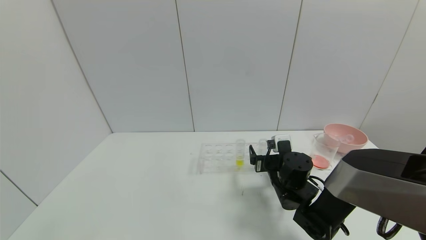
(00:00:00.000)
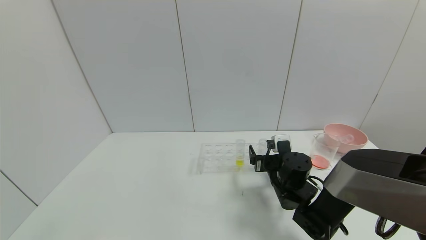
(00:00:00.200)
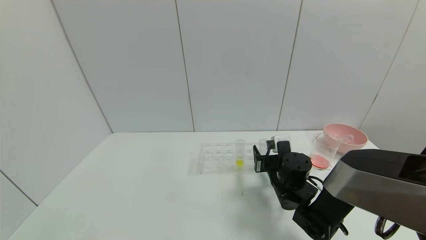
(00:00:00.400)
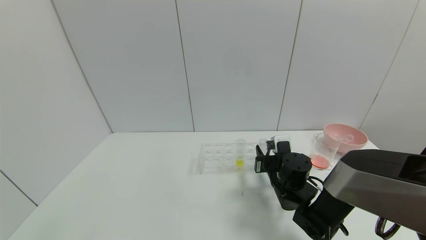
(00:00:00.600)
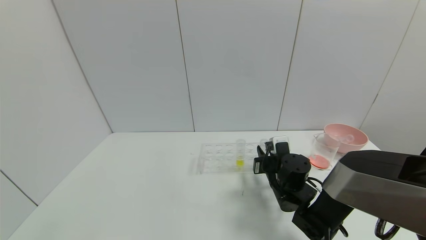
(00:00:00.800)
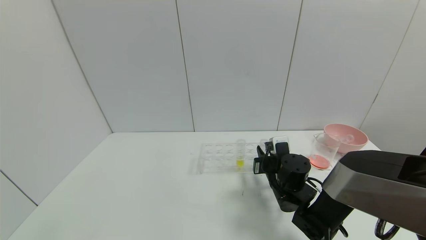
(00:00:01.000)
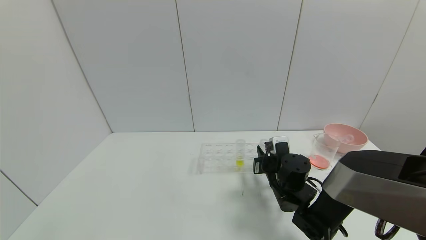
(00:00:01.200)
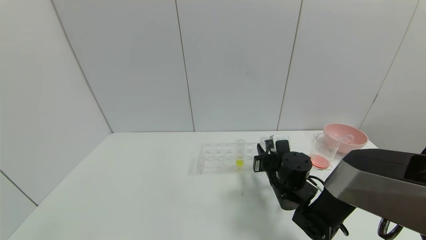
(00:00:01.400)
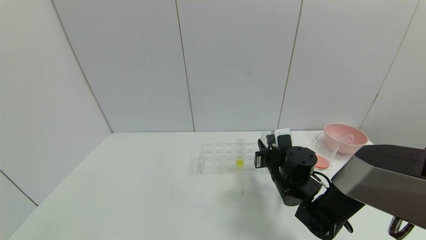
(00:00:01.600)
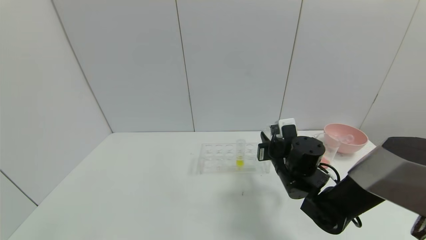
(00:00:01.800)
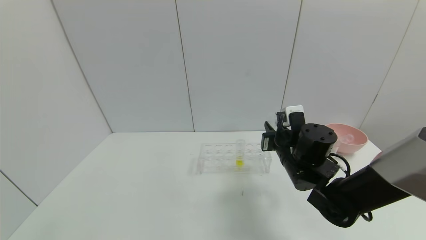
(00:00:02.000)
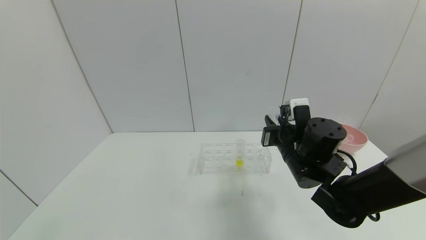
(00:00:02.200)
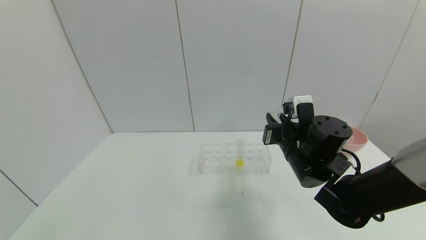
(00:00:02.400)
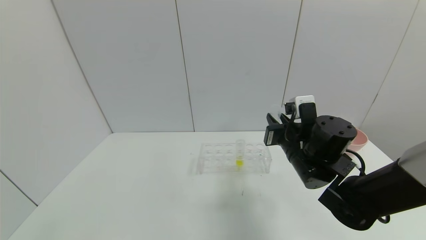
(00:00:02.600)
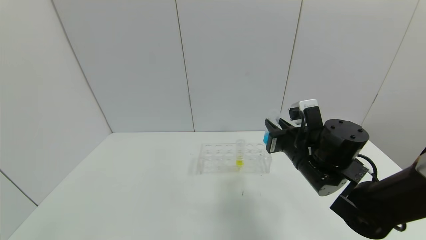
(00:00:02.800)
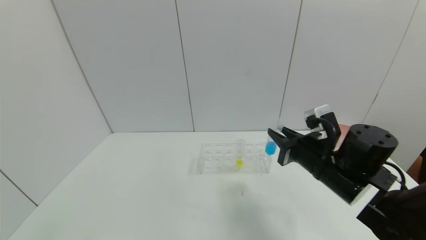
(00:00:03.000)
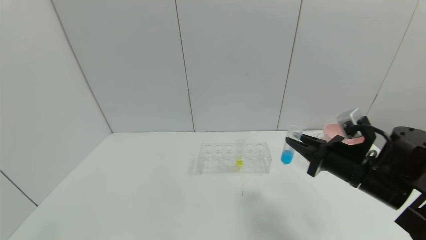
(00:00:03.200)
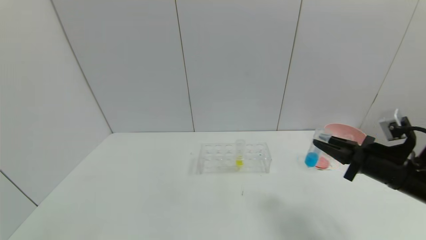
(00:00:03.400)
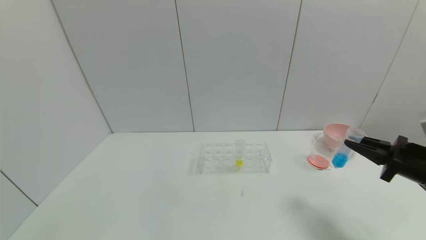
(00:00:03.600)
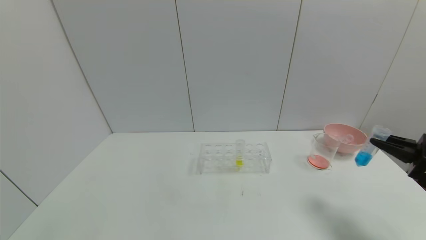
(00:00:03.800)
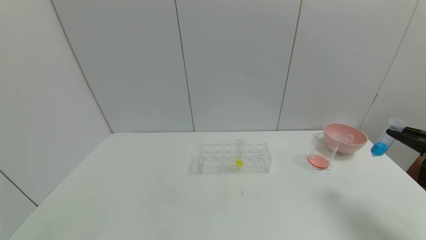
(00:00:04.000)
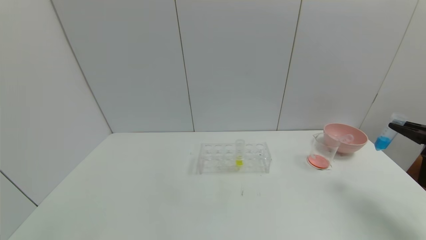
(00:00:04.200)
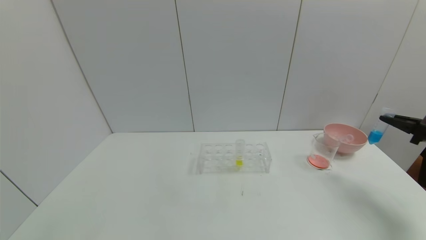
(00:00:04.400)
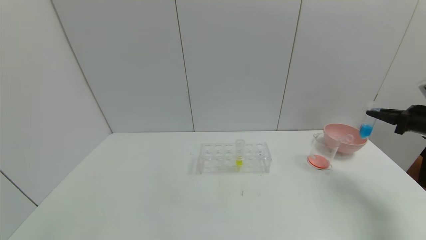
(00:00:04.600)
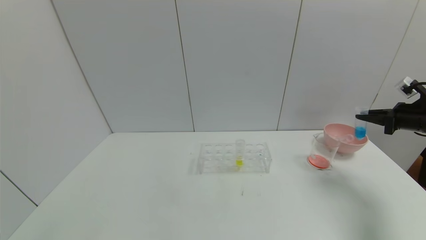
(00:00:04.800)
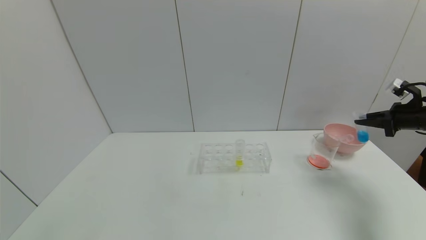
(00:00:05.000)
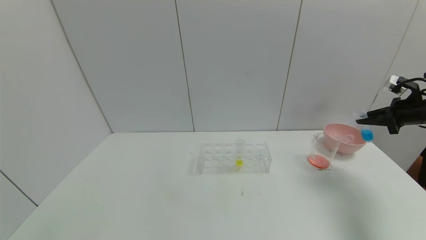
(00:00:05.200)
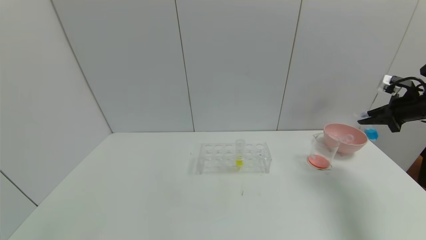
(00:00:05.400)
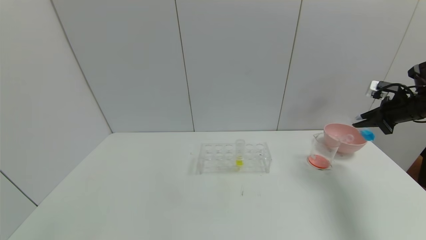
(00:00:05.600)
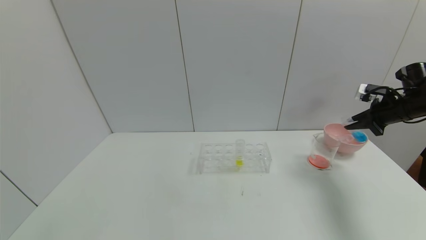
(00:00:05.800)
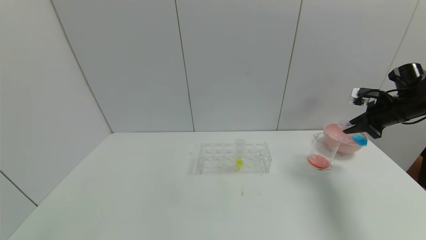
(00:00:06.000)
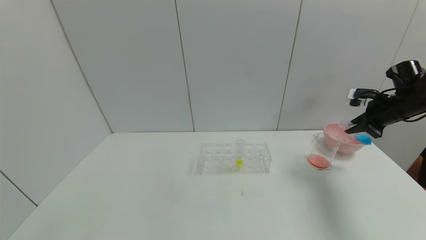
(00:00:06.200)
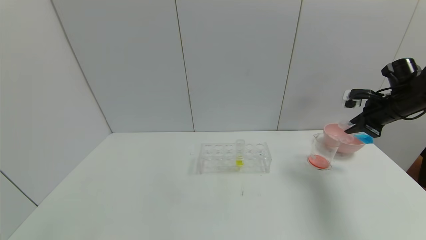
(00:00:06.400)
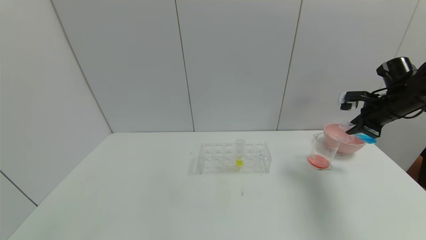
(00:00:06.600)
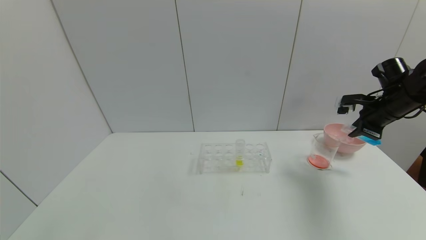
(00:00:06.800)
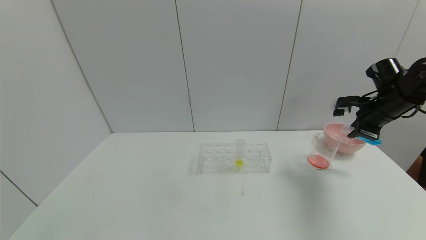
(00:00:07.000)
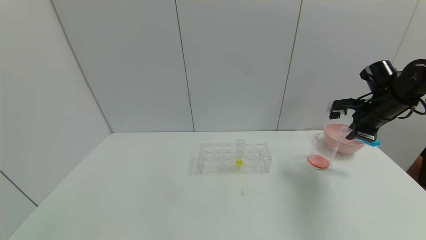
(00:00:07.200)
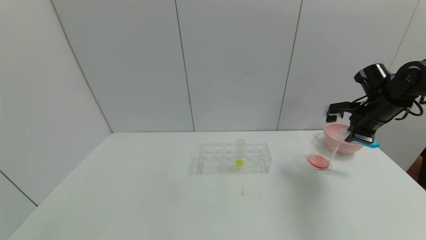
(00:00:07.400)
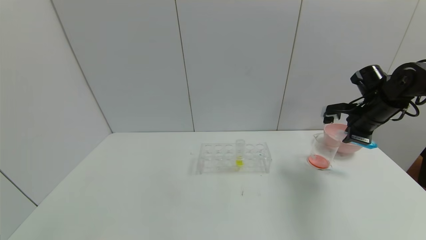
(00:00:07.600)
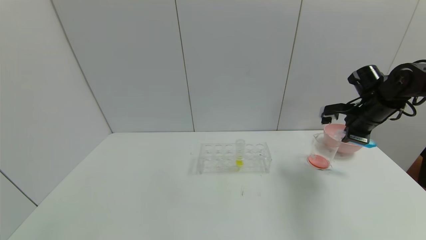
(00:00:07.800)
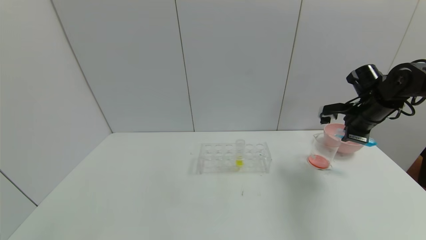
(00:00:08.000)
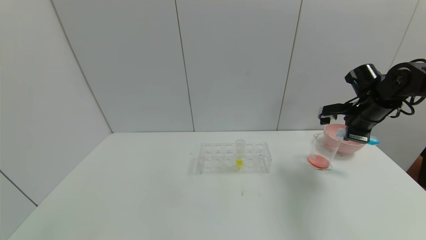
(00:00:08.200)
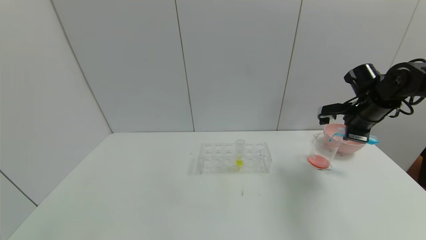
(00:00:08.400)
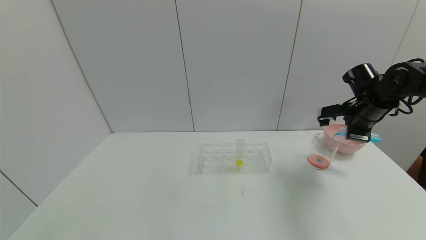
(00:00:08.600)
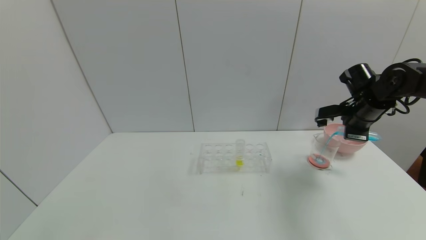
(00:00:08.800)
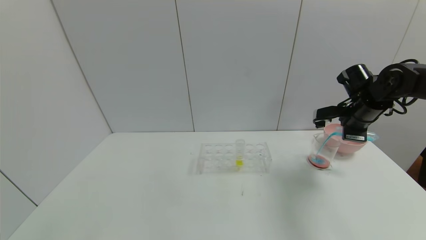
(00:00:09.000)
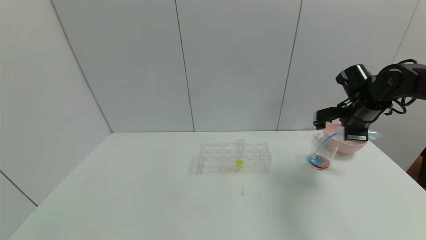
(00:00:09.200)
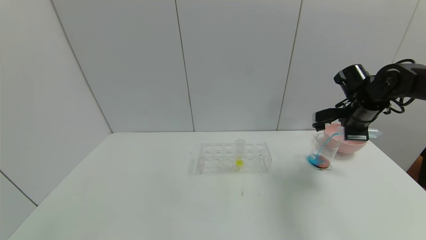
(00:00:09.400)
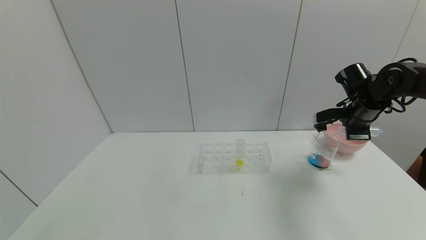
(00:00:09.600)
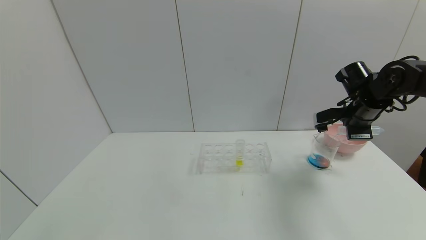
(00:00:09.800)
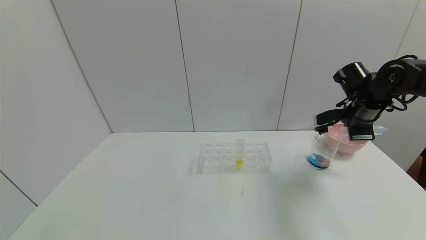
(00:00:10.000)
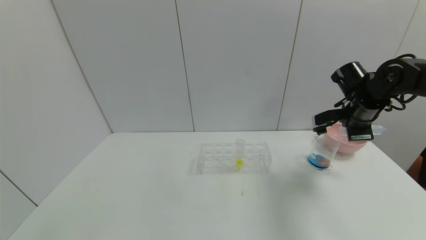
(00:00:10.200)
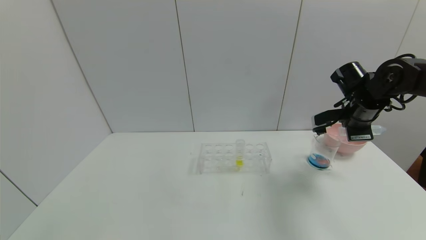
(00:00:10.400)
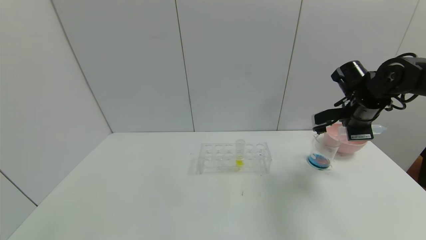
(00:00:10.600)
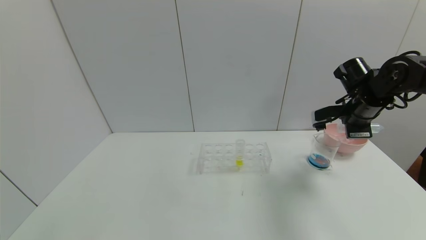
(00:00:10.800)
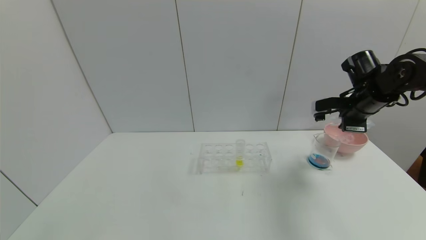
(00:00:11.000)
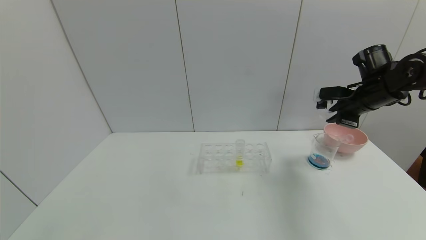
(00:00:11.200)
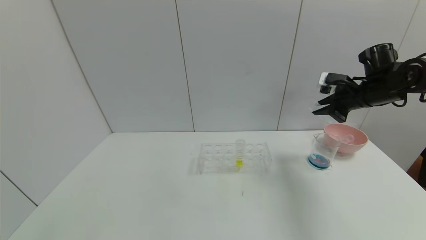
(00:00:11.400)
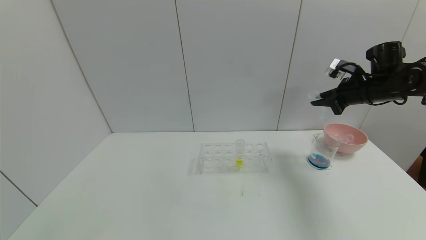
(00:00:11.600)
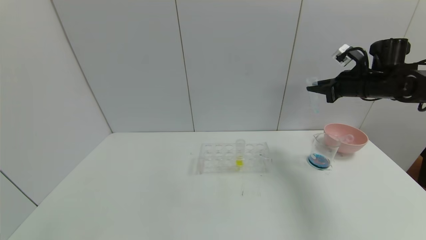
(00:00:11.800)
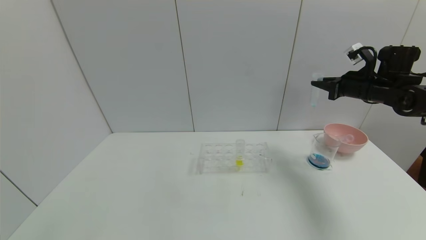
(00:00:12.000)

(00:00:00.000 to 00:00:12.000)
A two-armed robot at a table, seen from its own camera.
Task of the whole recording: pick up the test tube with red pigment and the test tube with blue pigment by grippers and pour them into the container.
Step, 00:00:00.000 - 00:00:04.000: Pick up the test tube containing the blue reagent with right gripper.
Step, 00:00:04.200 - 00:00:10.800: Pour the blue reagent into the graduated cylinder with right gripper.
00:00:00.000 - 00:00:01.600: The right gripper closes up.
00:00:01.600 - 00:00:03.000: The right gripper heads upward, backward and to the right, covering approximately 10 cm.
00:00:03.000 - 00:00:04.400: The right gripper shifts about 30 cm to the right.
00:00:04.400 - 00:00:06.000: The right gripper is displaced forward and to the left by about 10 cm.
00:00:06.000 - 00:00:07.600: The right gripper travels to the left by some 10 cm.
00:00:07.600 - 00:00:09.000: The grippers move only a little.
00:00:09.000 - 00:00:10.400: The grippers make only small movements.
00:00:10.400 - 00:00:12.000: The right gripper travels to the right by some 5 cm.

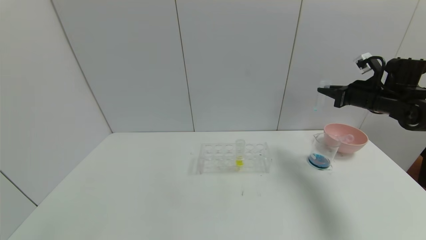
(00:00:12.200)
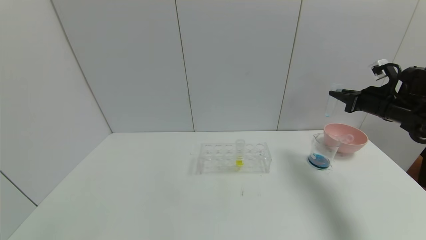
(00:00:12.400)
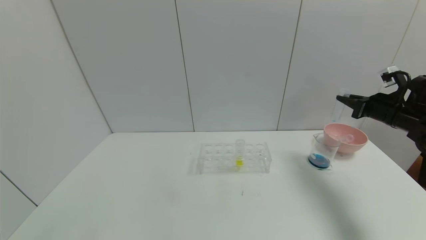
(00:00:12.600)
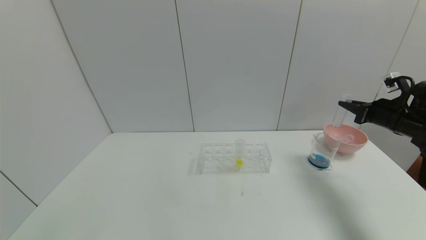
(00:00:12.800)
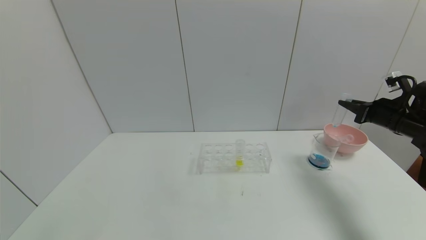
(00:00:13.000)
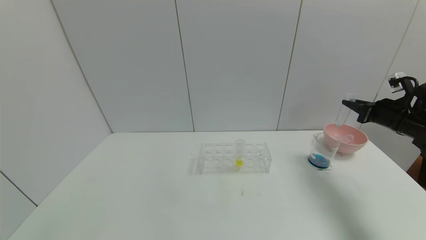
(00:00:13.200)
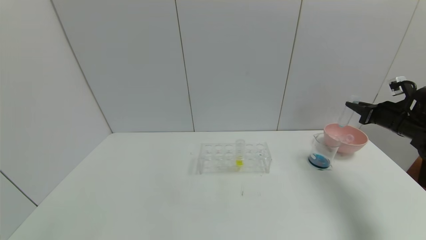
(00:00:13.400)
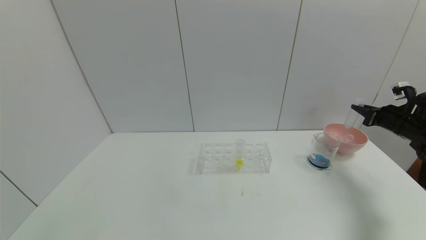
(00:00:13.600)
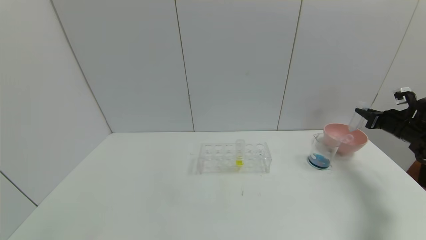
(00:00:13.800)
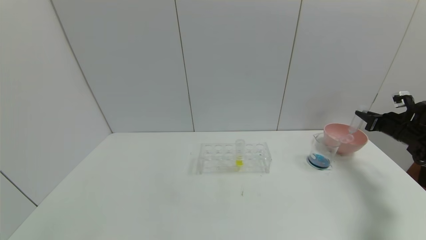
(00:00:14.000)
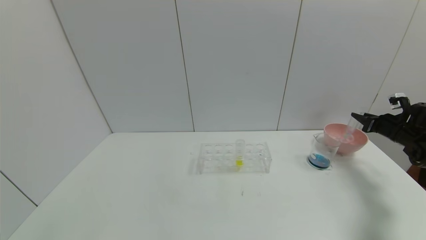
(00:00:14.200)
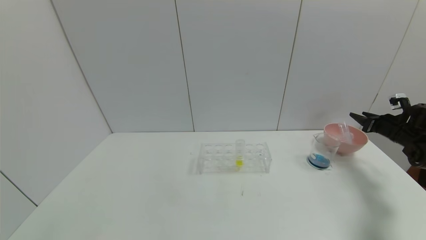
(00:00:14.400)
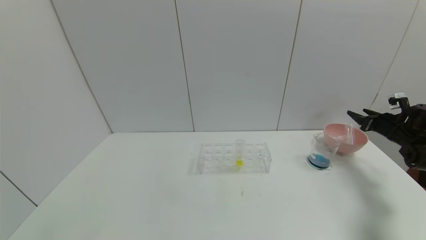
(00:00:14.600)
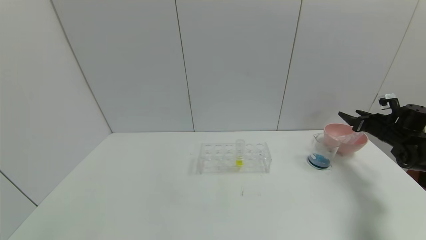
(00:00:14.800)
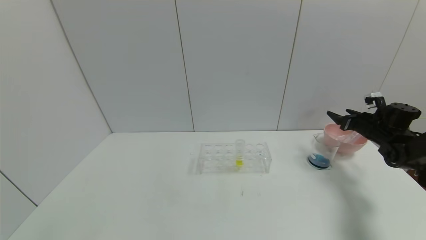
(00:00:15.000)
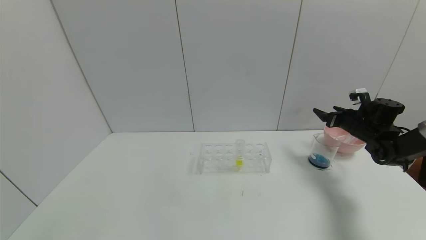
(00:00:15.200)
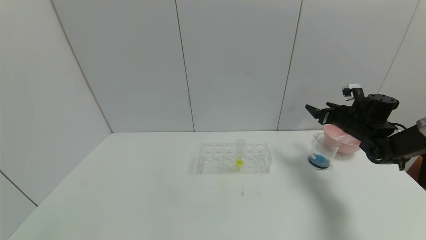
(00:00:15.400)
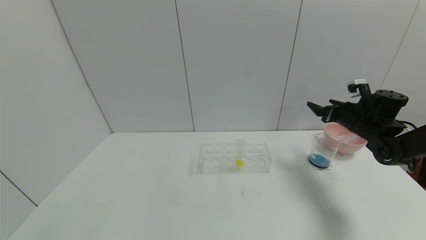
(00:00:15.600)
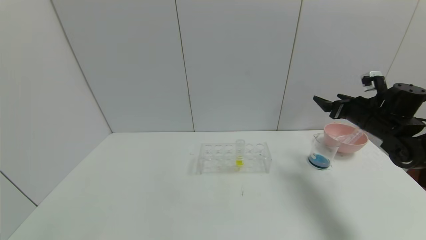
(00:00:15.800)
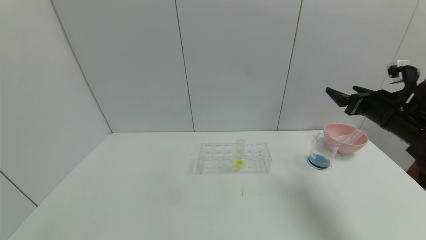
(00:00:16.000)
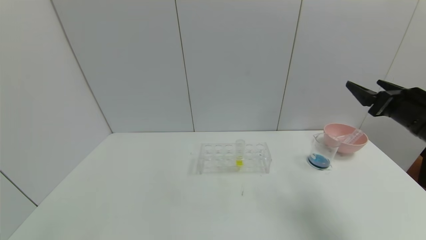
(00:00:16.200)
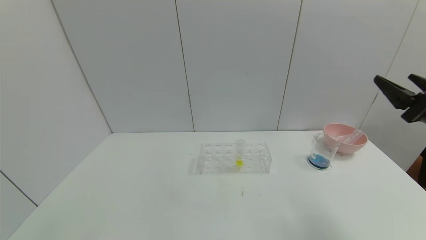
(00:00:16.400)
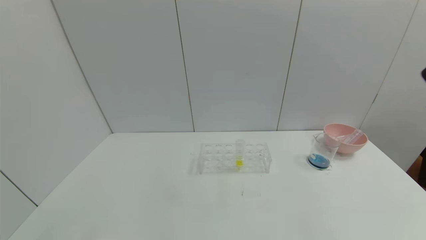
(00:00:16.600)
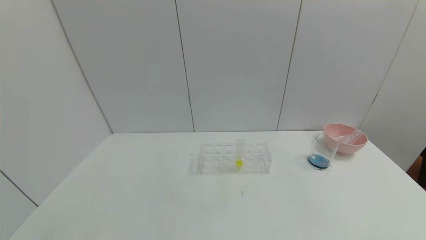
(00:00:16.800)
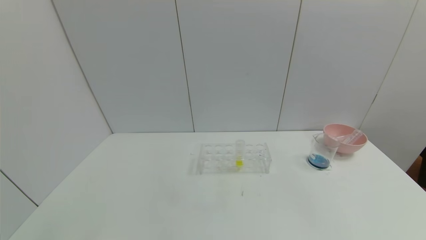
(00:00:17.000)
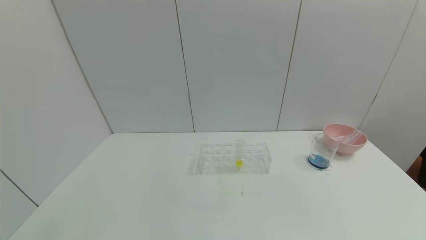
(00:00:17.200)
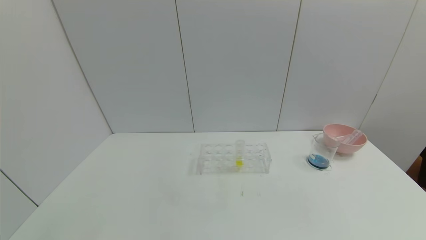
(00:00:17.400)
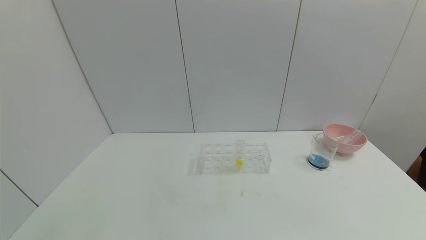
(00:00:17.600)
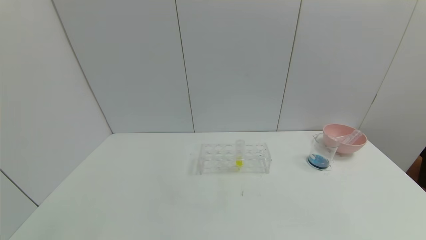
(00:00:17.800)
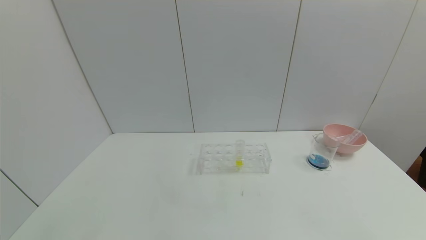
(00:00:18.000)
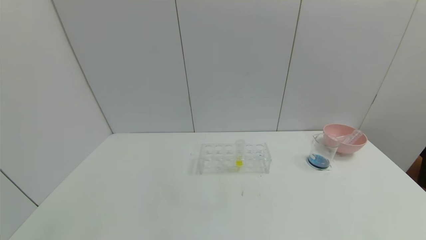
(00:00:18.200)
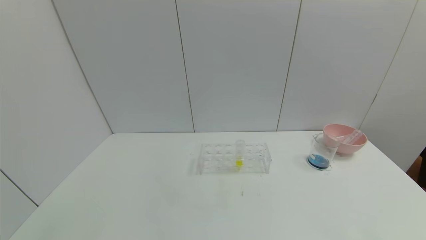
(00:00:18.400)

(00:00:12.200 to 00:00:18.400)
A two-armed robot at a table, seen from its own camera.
Task of the whole recording: pick up the test tube with red pigment and the test tube with blue pigment by grippers and pour them into the container.
Step, 00:00:12.200 - 00:00:14.800: Place the test tube into the bowl with right gripper.
00:00:12.200 - 00:00:13.800: The right gripper heads to the right and downward, covering approximately 15 cm.
00:00:13.800 - 00:00:15.400: The right gripper goes some 15 cm to the left, and opens up.
00:00:15.400 - 00:00:16.800: The right gripper is displaced backward by about 35 cm.
